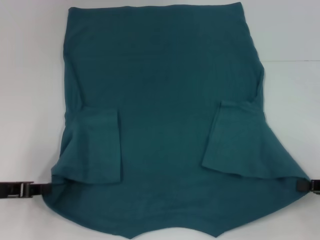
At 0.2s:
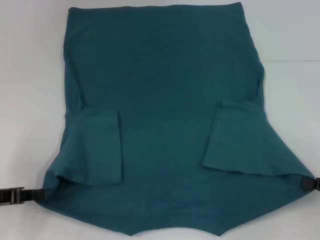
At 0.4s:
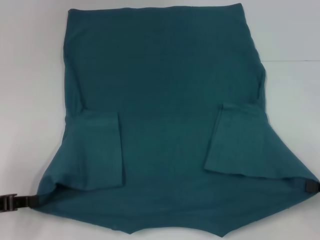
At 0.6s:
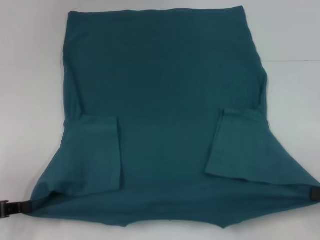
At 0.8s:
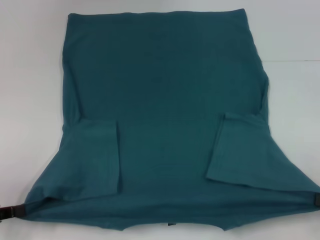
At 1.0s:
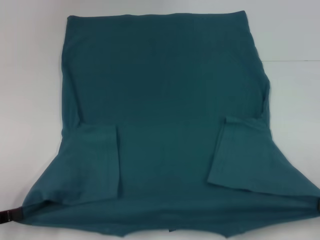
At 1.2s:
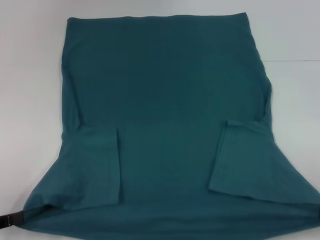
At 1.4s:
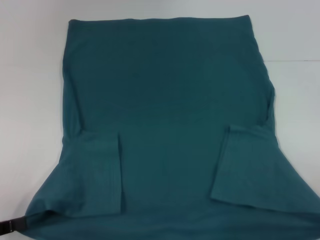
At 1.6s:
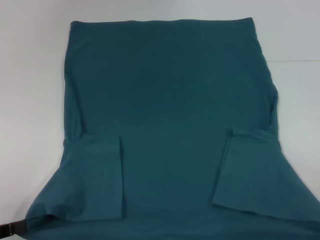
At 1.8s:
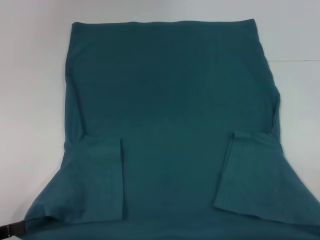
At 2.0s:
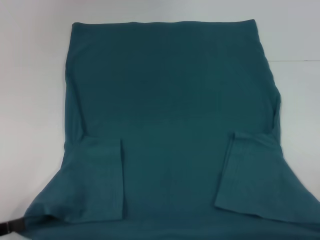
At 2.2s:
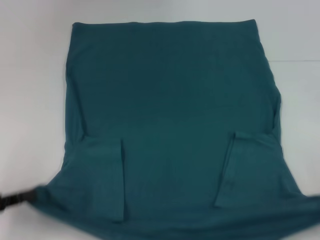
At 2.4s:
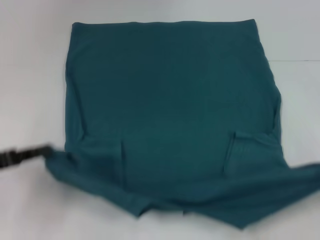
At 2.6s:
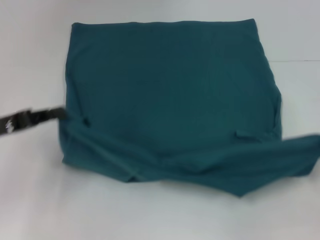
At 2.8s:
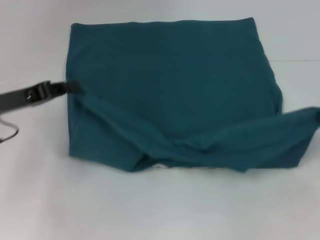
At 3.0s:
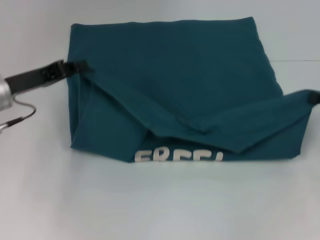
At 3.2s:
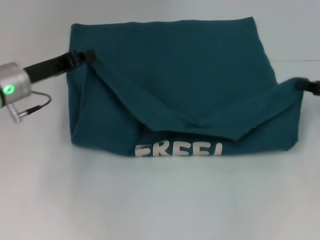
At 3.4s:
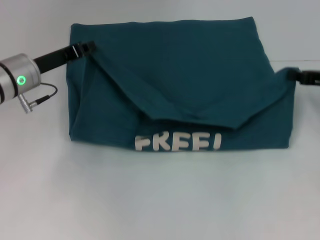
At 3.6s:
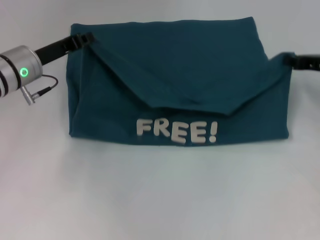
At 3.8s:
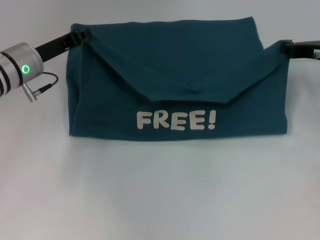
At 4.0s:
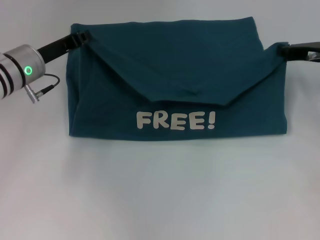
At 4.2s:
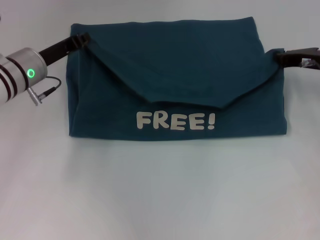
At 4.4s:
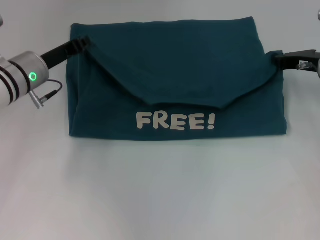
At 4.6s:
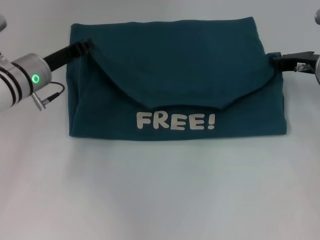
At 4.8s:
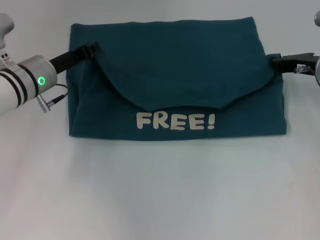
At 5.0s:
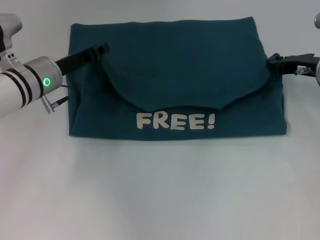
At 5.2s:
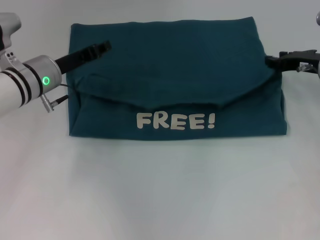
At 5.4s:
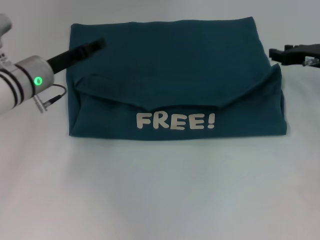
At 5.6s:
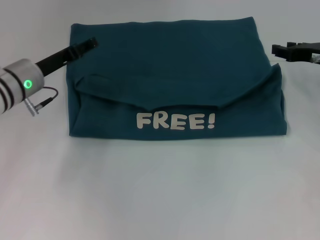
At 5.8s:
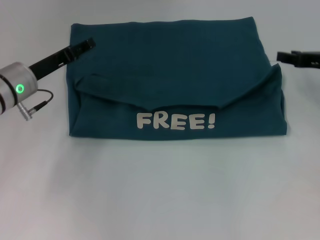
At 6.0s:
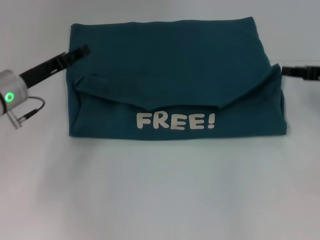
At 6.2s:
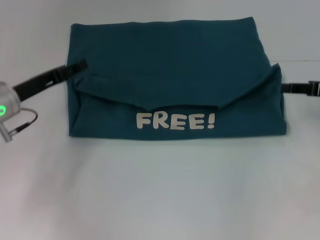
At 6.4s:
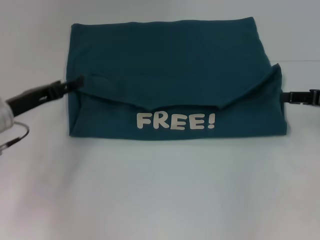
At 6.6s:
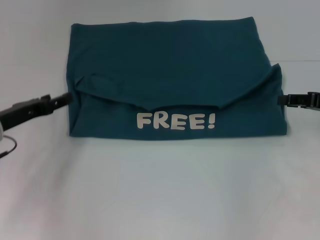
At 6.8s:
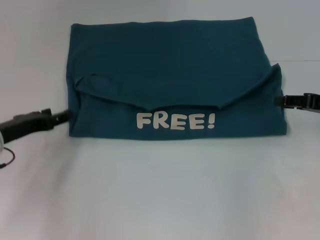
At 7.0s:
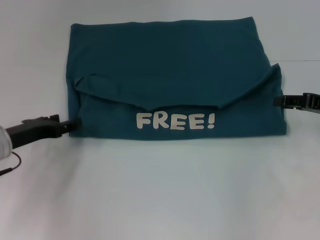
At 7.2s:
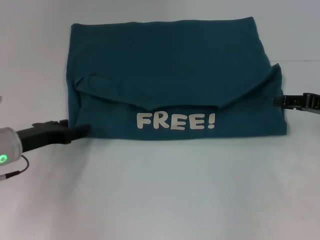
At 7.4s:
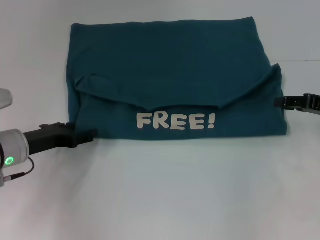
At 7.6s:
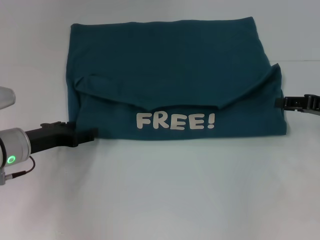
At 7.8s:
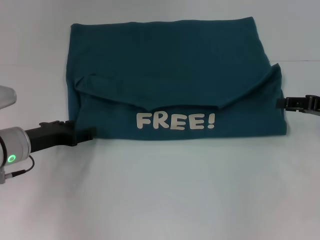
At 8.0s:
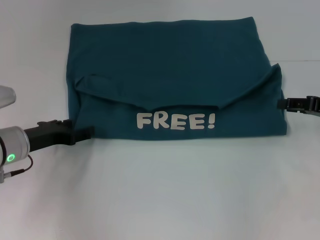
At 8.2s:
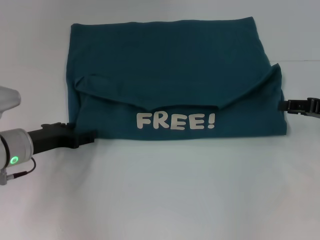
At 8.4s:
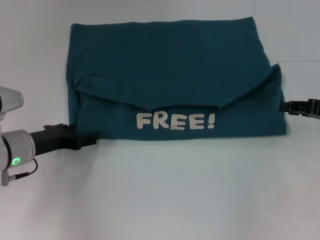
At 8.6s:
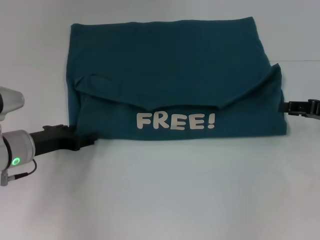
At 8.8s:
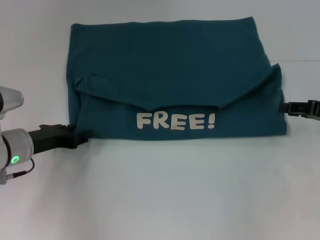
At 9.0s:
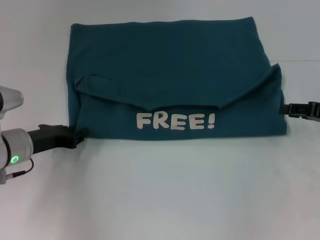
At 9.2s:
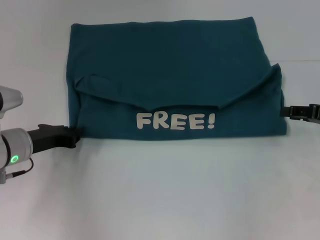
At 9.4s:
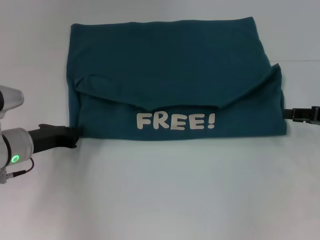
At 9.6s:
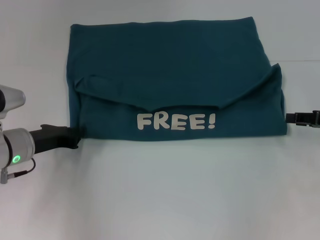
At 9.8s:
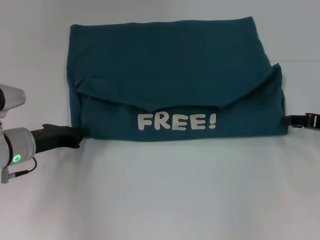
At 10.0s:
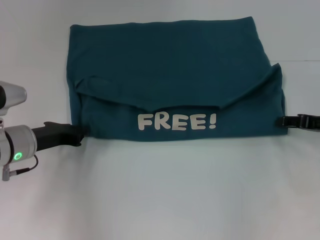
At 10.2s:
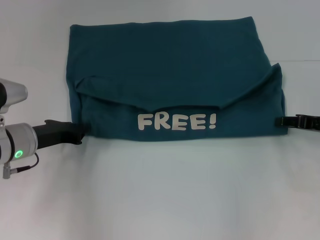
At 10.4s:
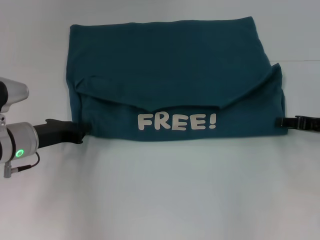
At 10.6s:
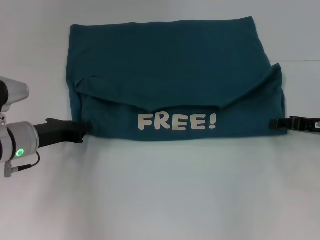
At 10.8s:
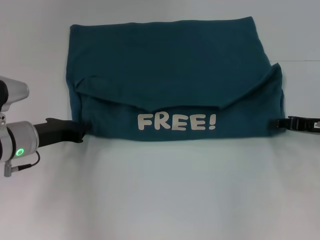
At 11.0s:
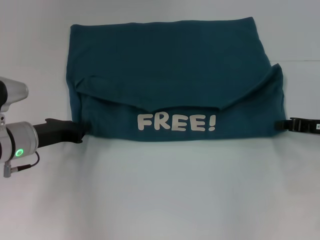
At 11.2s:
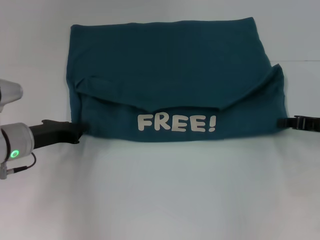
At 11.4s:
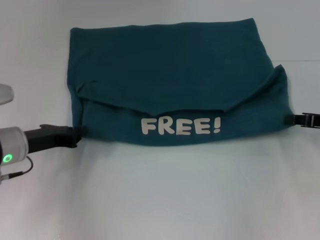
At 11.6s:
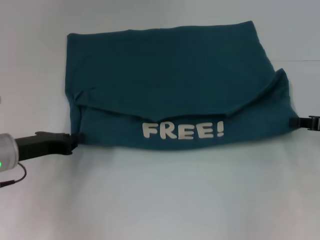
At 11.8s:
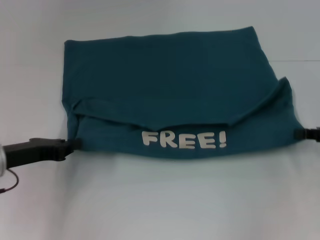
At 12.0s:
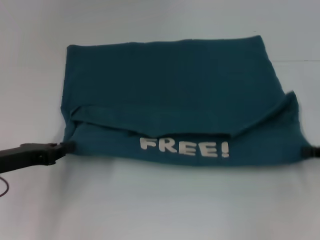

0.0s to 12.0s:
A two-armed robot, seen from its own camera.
Step, 0.2s to 5.4s: Fold the clothes to the left.
Step, 0.2s to 5.4s: Fold the clothes to the right.
0.0s to 1.6s: Both grippers move backward, some 10 cm.
1.6s to 3.0s: The left gripper heads forward and to the right, covering roughly 20 cm. The right gripper moves forward, about 15 cm.
3.0s to 4.4s: The left gripper shifts some 5 cm forward. The right gripper is displaced forward and to the left by approximately 15 cm.
4.4s to 6.0s: The right gripper heads to the right, covering some 5 cm, and opens. Meanwhile the left gripper opens its fingers.
6.0s to 7.6s: The left gripper moves backward, about 5 cm.
7.6s to 9.0s: The grippers make only small movements.
9.0s to 10.4s: The left gripper closes up.
10.4s to 12.0s: Both grippers travel together backward, approximately 5 cm. The right gripper closes.

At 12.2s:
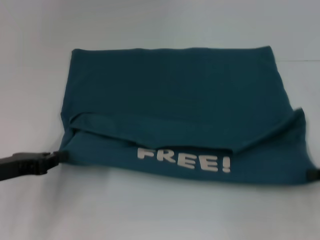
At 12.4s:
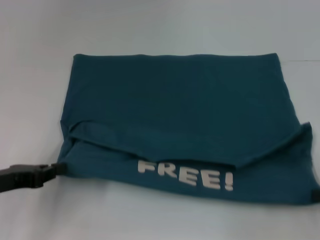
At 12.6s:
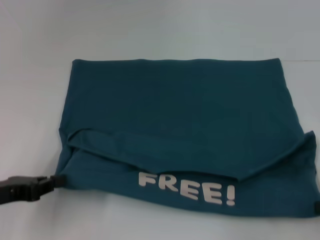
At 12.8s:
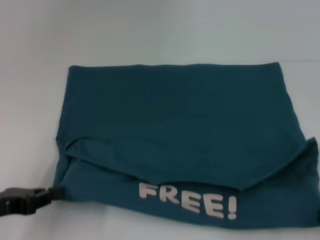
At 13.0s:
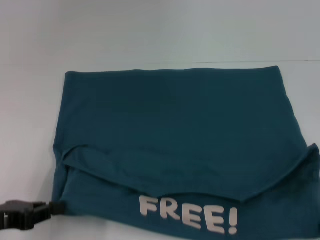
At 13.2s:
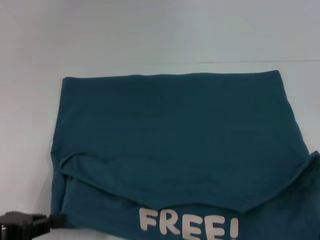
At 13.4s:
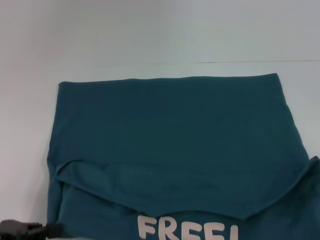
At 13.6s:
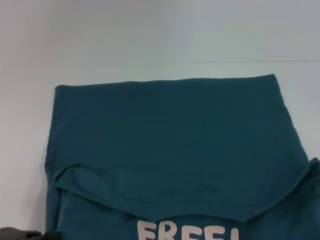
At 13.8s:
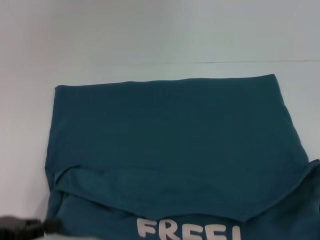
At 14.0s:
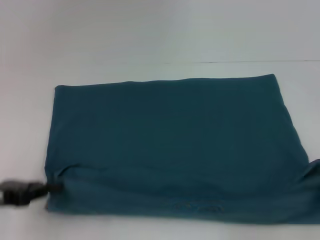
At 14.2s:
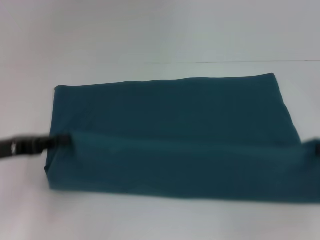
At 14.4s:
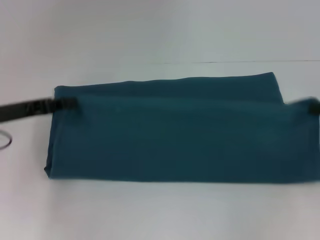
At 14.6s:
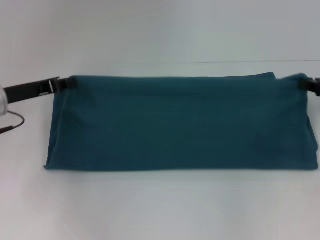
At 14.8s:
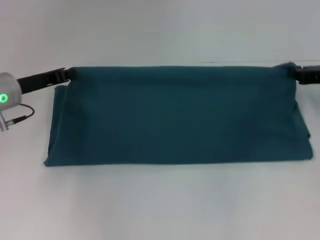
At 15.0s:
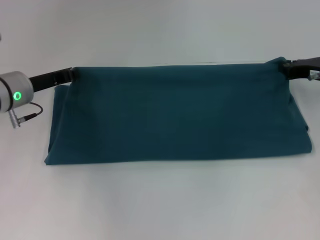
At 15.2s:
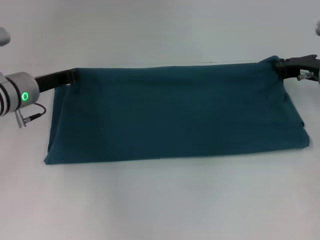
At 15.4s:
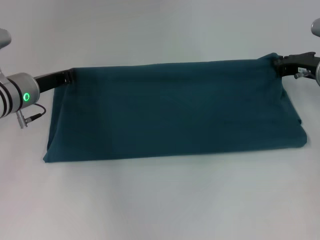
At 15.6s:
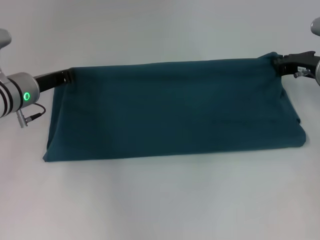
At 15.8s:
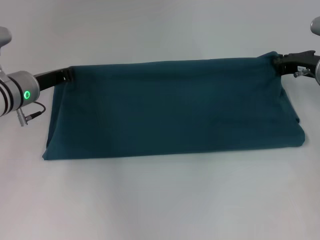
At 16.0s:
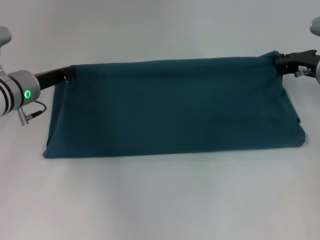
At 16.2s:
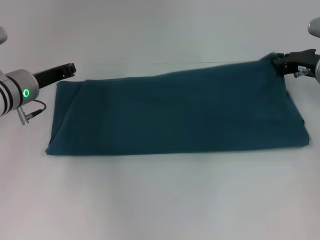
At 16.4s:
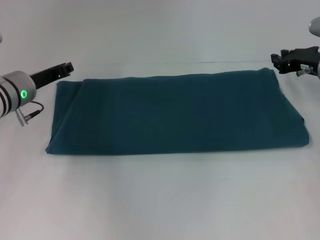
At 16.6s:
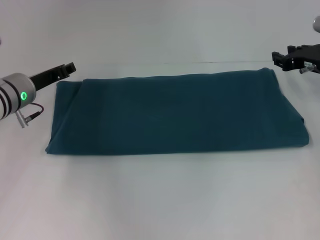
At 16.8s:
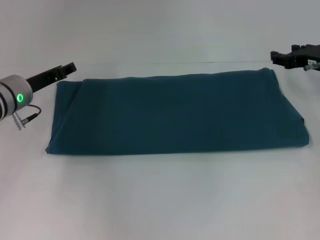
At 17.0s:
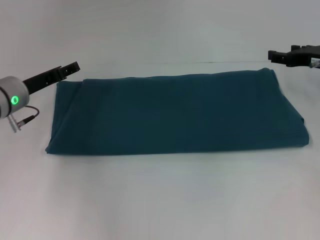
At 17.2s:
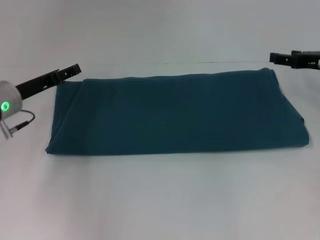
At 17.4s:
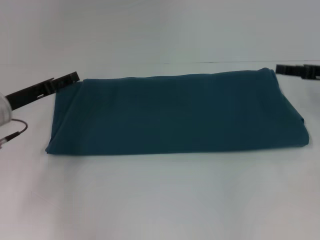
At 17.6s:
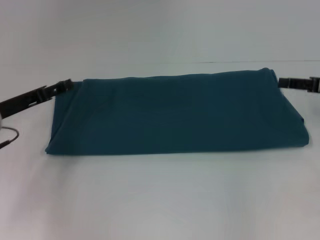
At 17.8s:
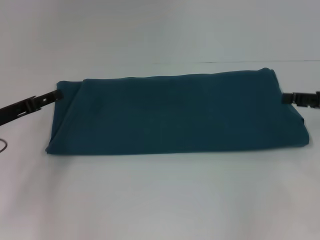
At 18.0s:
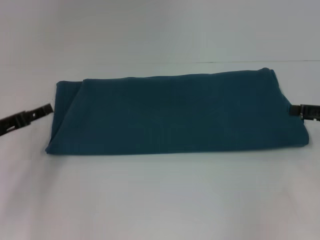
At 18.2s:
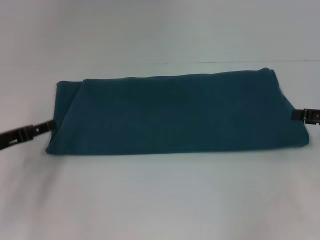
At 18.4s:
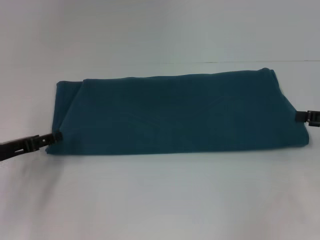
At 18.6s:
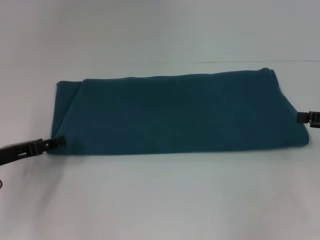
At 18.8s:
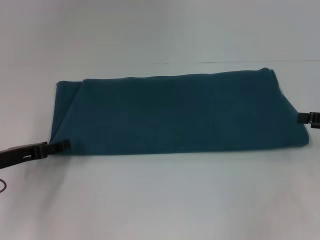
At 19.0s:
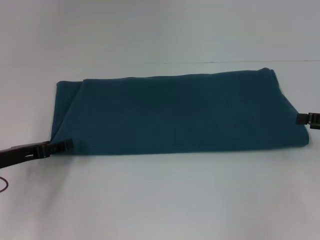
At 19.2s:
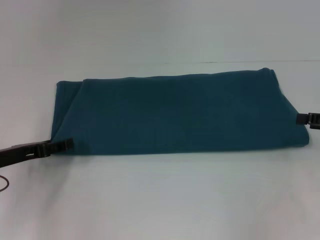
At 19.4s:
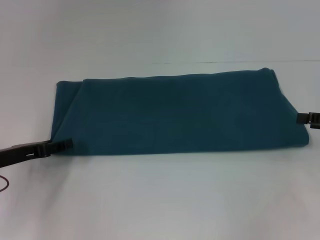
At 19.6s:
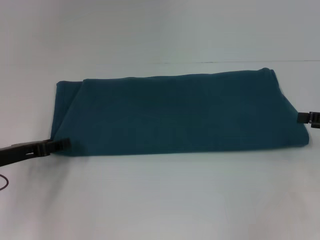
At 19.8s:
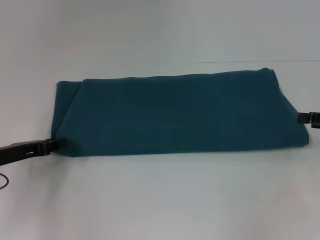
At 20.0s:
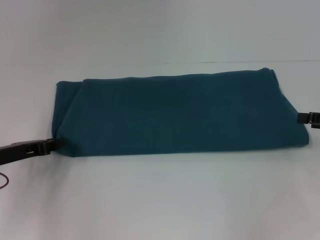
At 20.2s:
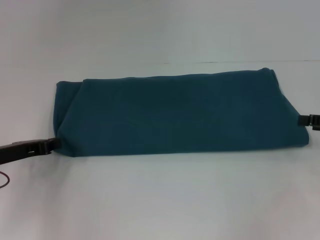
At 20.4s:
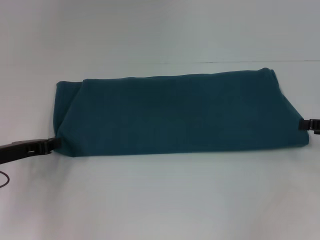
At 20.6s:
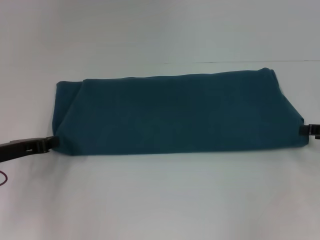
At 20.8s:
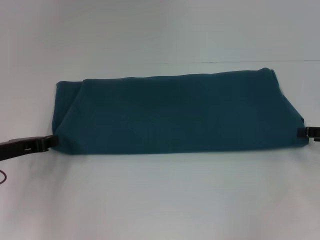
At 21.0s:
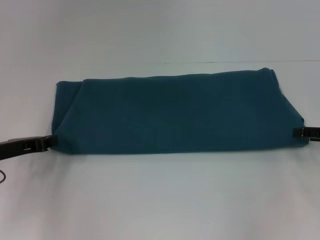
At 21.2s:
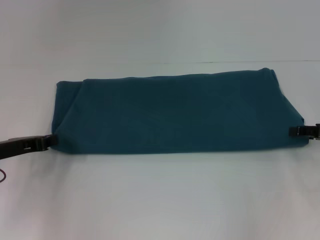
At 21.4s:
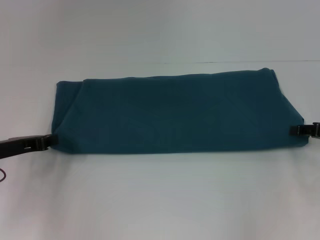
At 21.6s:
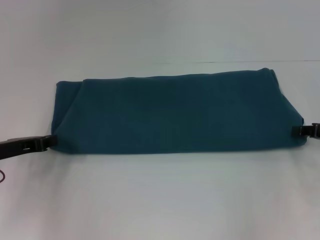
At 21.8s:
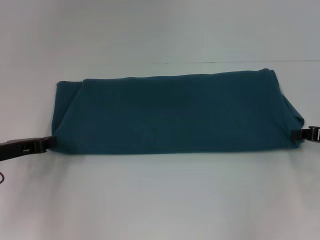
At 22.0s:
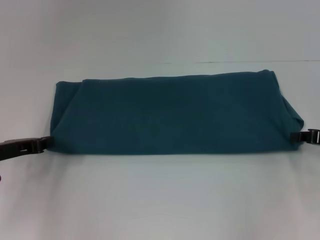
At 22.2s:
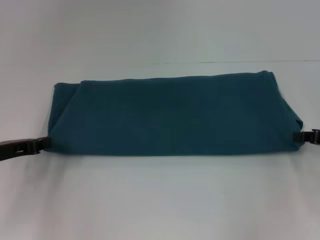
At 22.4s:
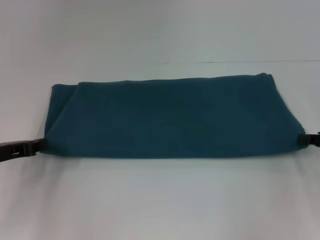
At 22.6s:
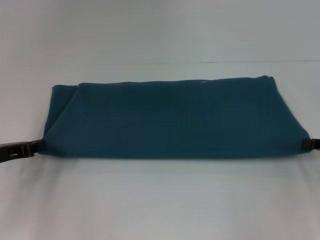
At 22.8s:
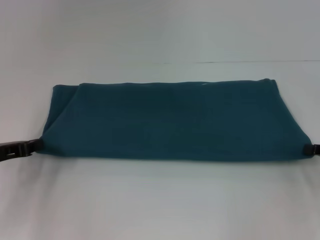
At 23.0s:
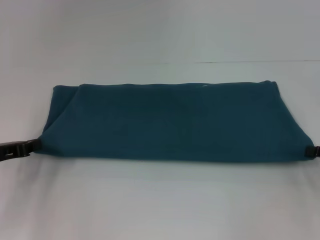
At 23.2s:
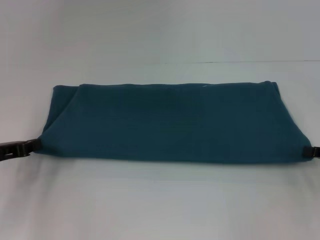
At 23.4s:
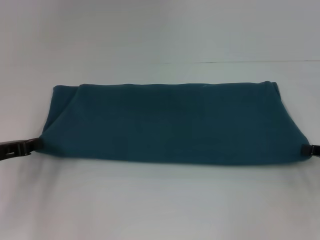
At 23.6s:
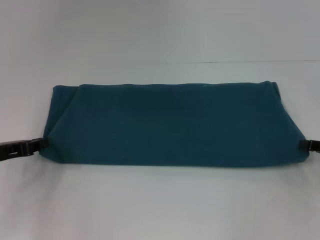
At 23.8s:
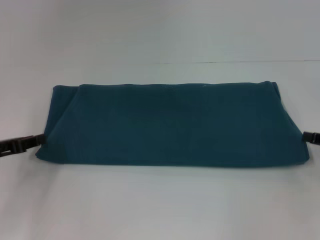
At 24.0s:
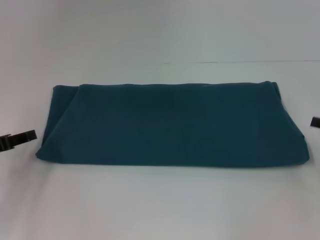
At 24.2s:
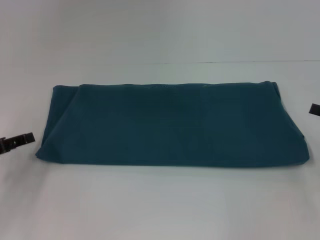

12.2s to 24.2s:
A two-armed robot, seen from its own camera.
Step, 13.8s to 16.4s: Fold the clothes to the right.
12.2s to 13.8s: The grippers both shift backward by some 5 cm.
13.8s to 15.2s: The left gripper shifts some 20 cm forward, while the right gripper moves forward and to the left, roughly 25 cm.
15.2s to 16.6s: The grippers move only a little.
16.6s to 18.2s: The left gripper moves backward and to the left, about 15 cm, and opens; the right gripper heads backward and to the right, covering about 15 cm, and opens its fingers.
18.2s to 19.8s: The grippers make only small movements.
19.8s to 21.2s: The left gripper closes.
21.2s to 22.6s: The right gripper closes its fingers.
22.6s to 24.2s: The left gripper opens up; the right gripper opens up.
